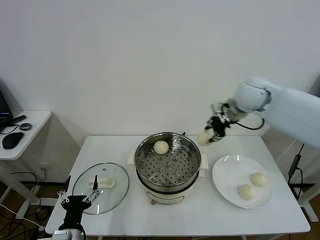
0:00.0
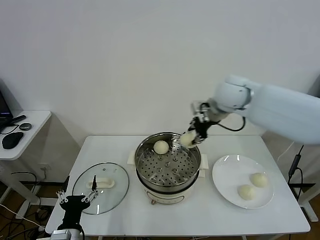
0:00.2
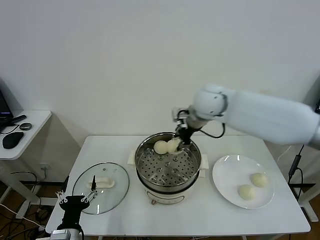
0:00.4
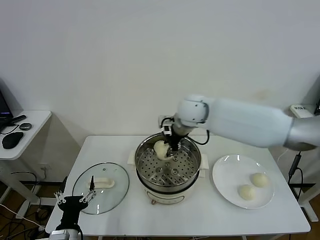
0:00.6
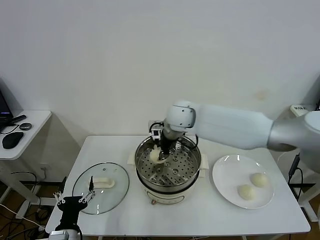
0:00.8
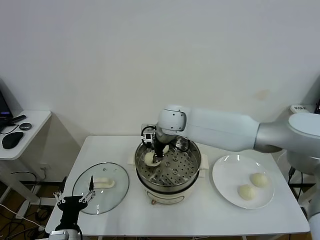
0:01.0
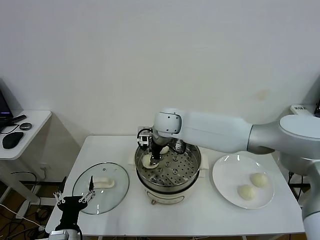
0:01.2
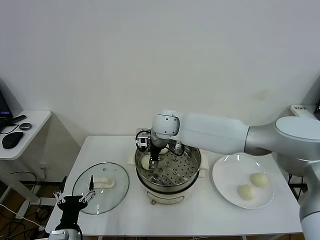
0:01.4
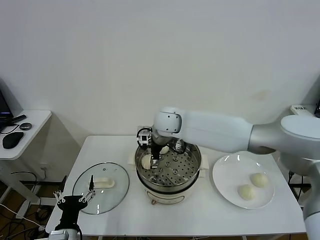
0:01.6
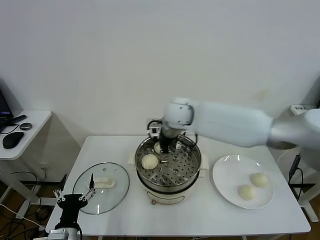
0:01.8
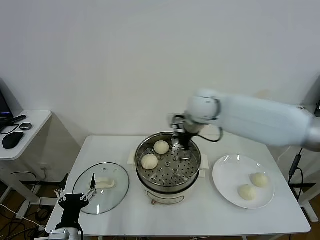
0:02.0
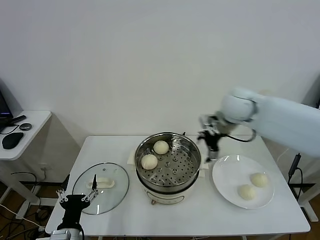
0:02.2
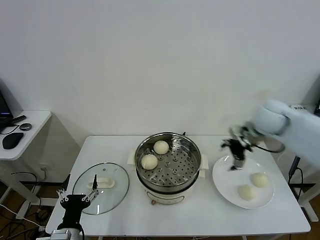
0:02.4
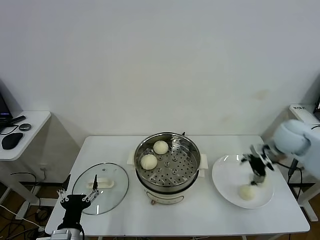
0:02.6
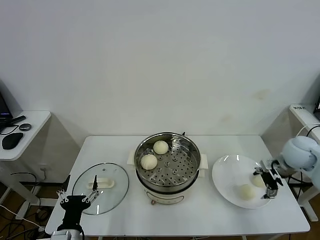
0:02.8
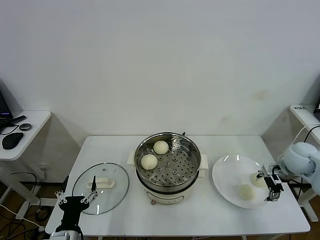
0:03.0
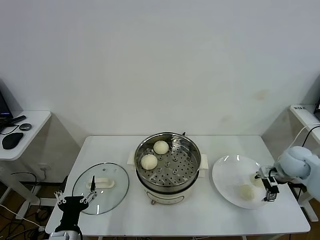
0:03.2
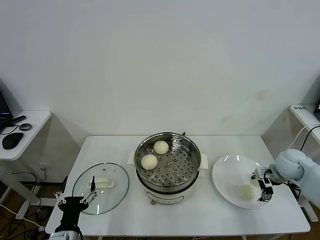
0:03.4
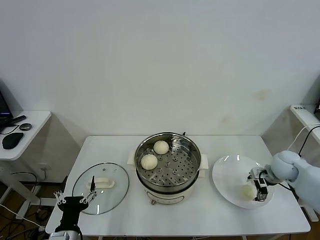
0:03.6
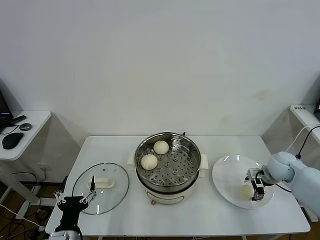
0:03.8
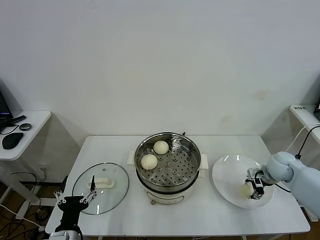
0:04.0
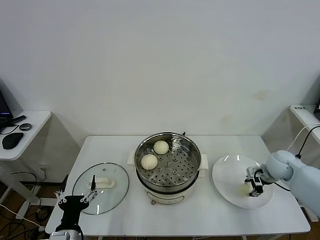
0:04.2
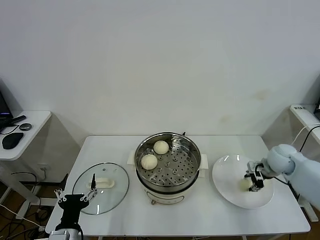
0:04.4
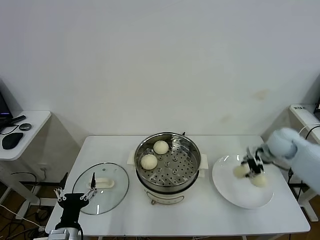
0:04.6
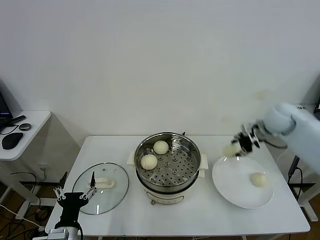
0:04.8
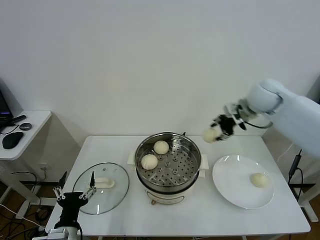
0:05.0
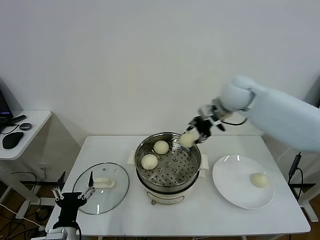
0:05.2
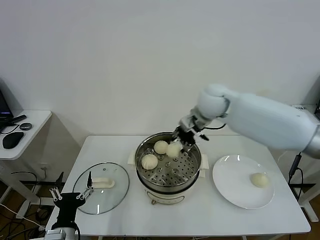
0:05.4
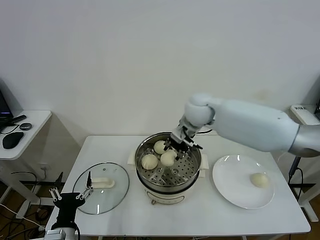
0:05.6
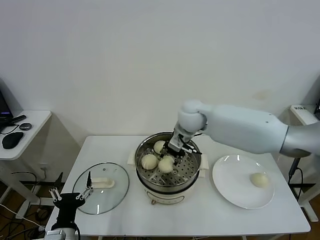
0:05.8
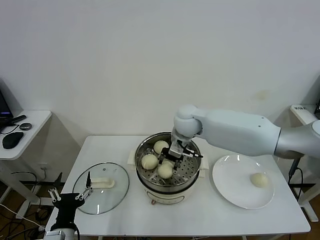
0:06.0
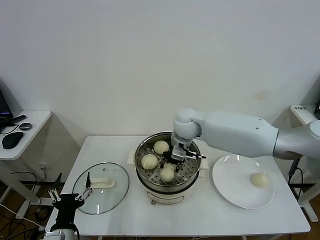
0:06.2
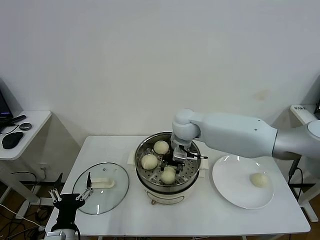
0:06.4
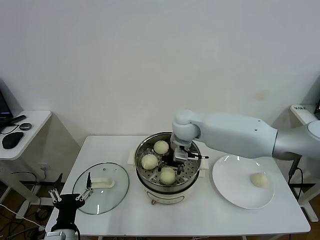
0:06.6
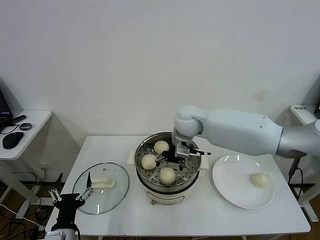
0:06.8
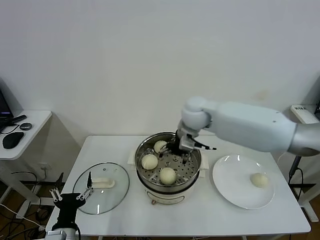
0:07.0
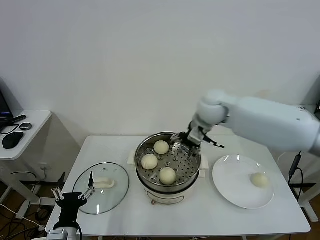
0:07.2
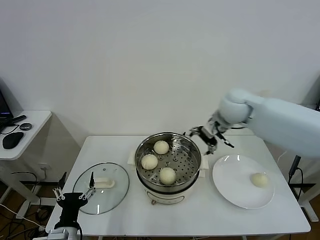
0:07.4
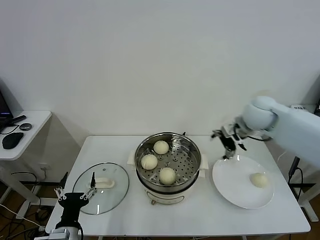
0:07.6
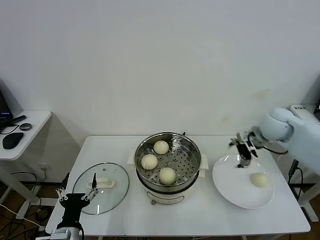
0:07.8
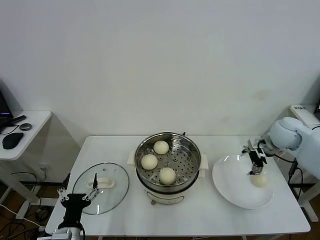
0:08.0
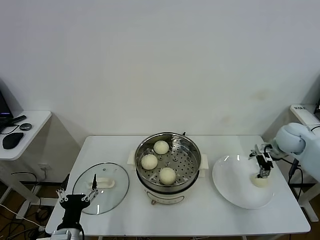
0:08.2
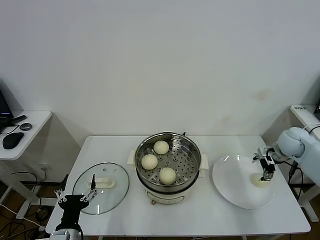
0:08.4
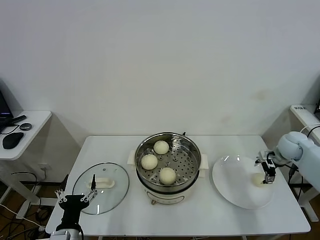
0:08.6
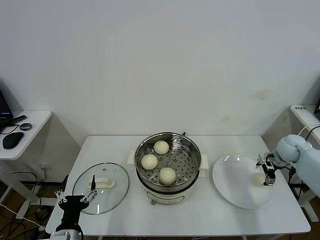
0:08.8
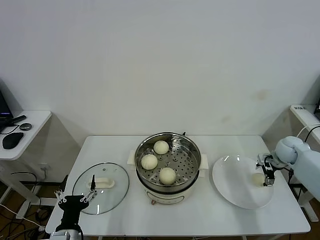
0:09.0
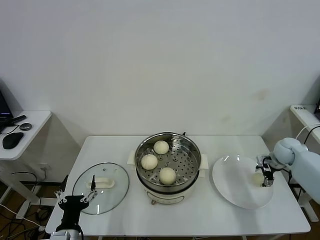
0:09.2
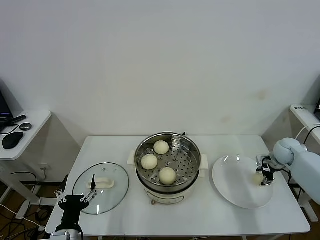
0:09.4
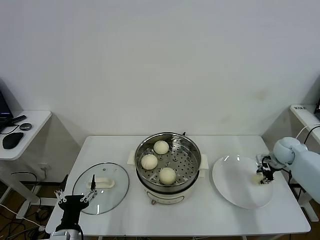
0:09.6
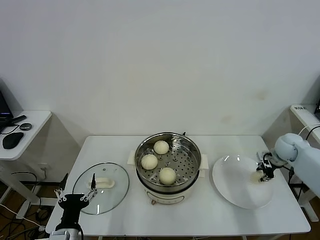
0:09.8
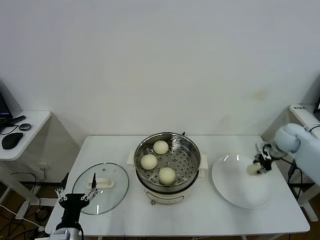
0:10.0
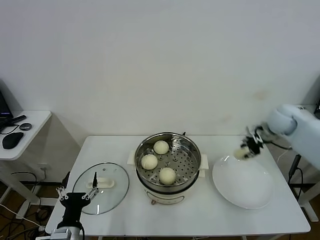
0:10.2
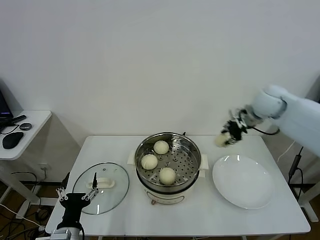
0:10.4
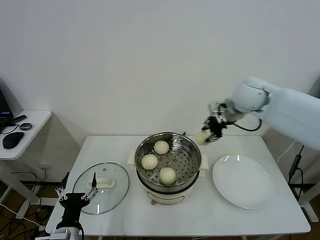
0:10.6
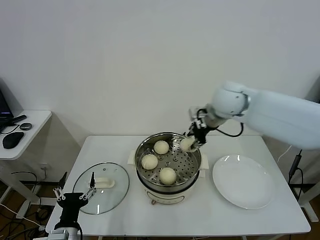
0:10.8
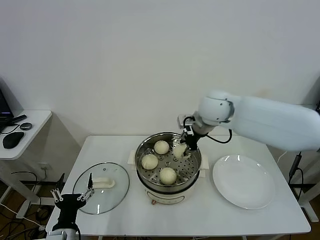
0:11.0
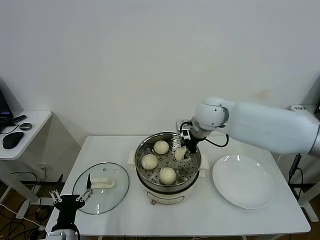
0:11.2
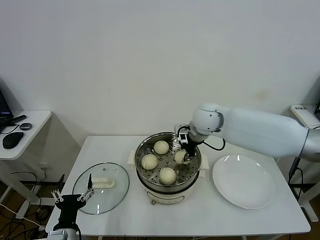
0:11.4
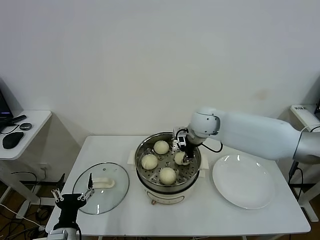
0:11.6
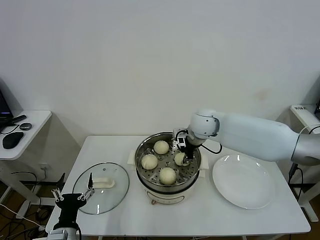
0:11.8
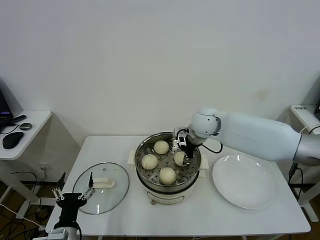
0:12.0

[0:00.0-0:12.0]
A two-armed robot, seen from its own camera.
Task of the whole recording: take steamed baozi put them in steamer.
Step, 0:00.0 to 0:01.6: Place the baozi on the steamer with right gripper.
Step, 0:02.0 to 0:04.4: Grasp the baozi in the plate with right gripper.
Step, 0:04.6 to 0:07.0: Place the baozi on the steamer with right gripper.
Step, 0:07.2 to 0:09.6: Grasp the baozi in the plate with right gripper.
0:00.0 to 0:01.6: The right gripper heads to the left and downward, covering about 25 cm, and opens up.
0:01.6 to 0:03.0: The right gripper moves to the right, some 40 cm.
0:03.0 to 0:04.4: The right gripper moves about 5 cm, and closes up.
0:04.4 to 0:06.0: The right gripper goes roughly 35 cm to the left.
0:06.0 to 0:07.6: The right gripper shifts about 20 cm to the right, and opens up.
0:07.6 to 0:09.0: The right gripper heads to the right and downward, covering about 25 cm.
0:09.0 to 0:10.4: The right gripper travels upward and to the left by some 25 cm, and closes up.
0:10.4 to 0:12.0: The right gripper travels to the left by approximately 20 cm, and opens its fingers.

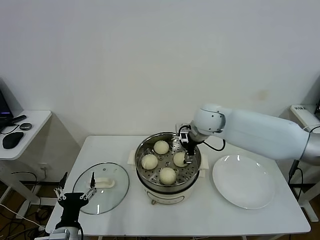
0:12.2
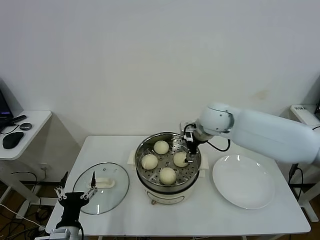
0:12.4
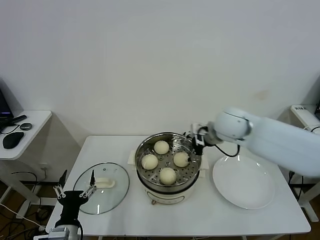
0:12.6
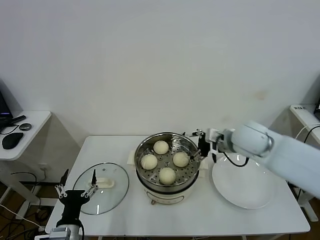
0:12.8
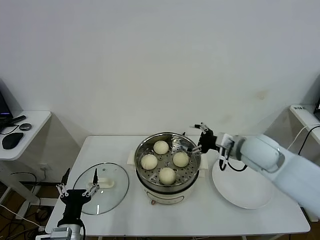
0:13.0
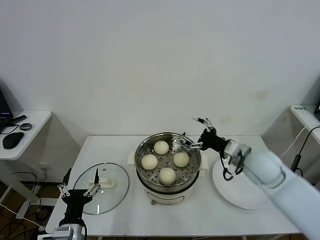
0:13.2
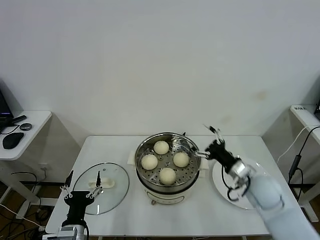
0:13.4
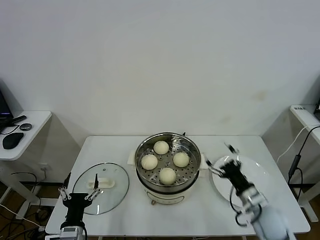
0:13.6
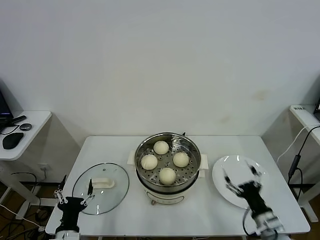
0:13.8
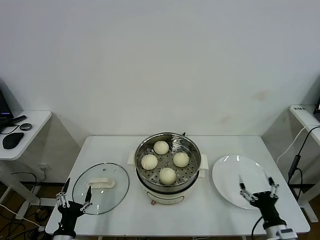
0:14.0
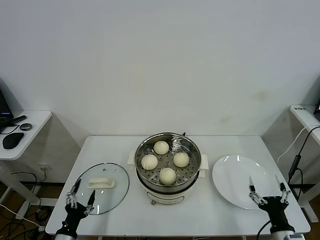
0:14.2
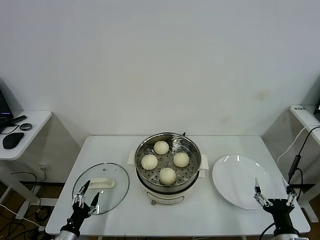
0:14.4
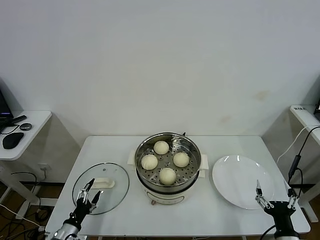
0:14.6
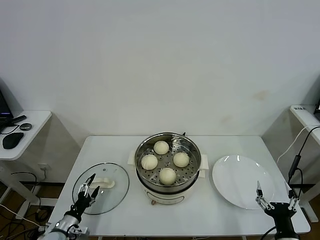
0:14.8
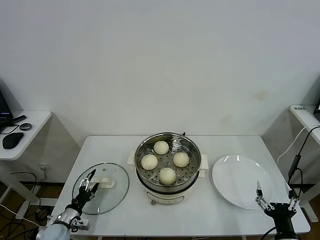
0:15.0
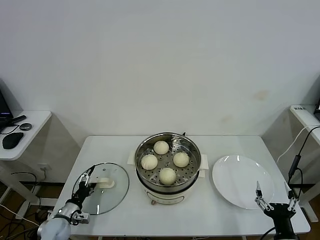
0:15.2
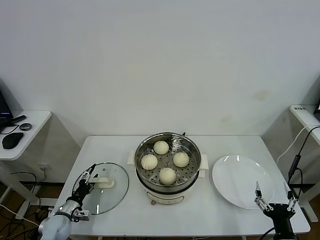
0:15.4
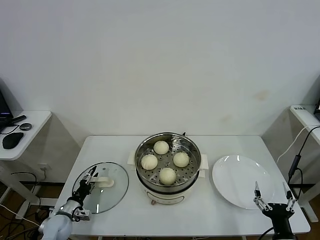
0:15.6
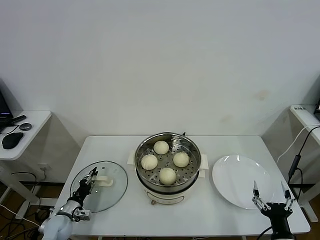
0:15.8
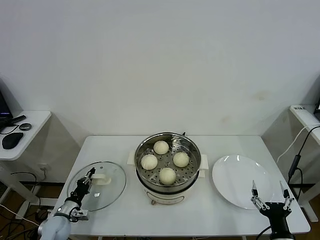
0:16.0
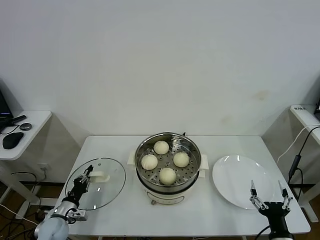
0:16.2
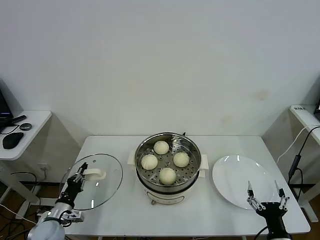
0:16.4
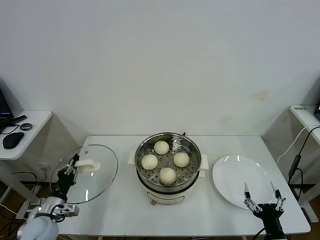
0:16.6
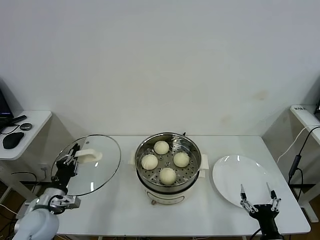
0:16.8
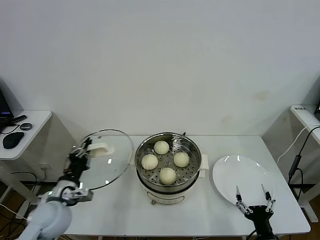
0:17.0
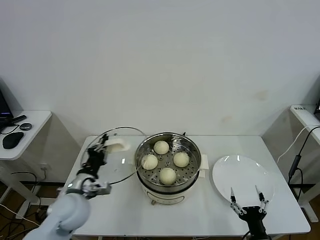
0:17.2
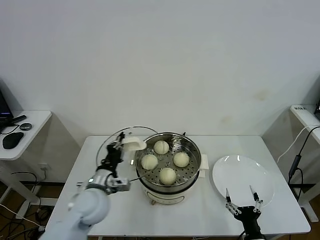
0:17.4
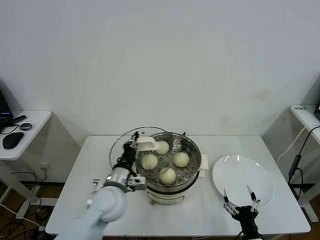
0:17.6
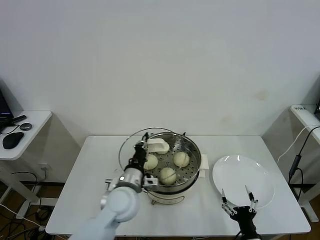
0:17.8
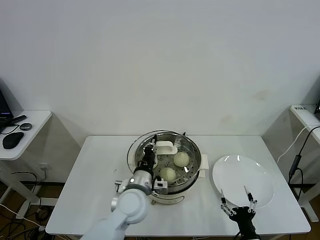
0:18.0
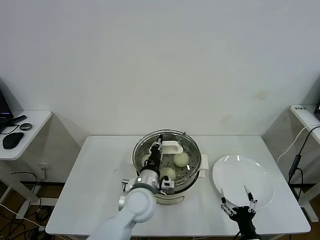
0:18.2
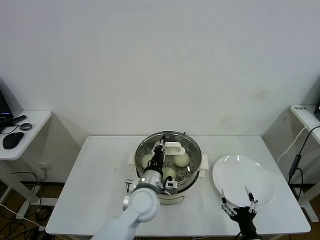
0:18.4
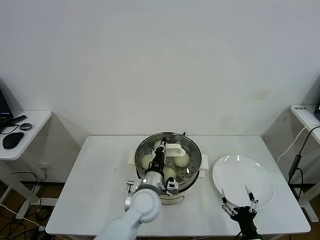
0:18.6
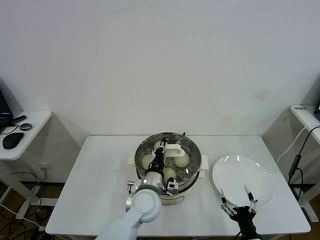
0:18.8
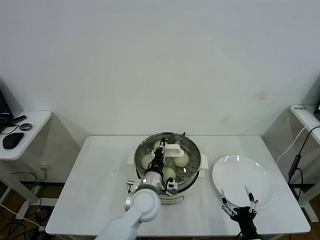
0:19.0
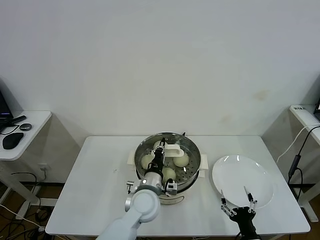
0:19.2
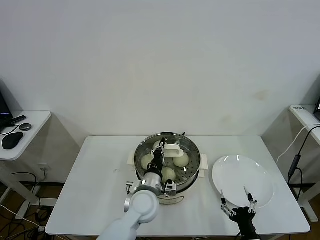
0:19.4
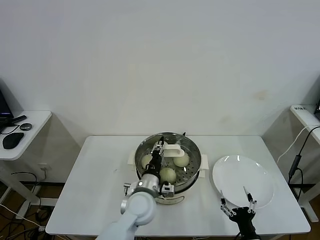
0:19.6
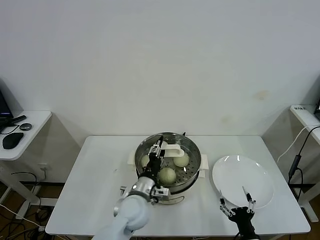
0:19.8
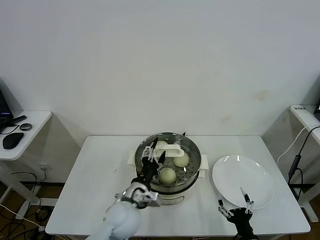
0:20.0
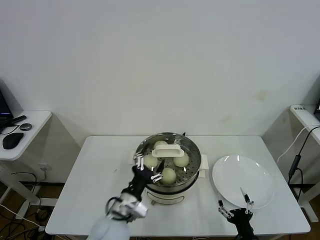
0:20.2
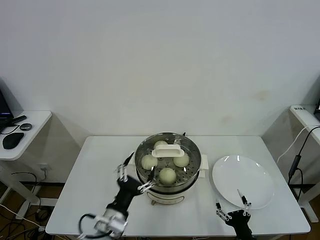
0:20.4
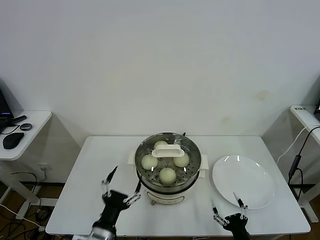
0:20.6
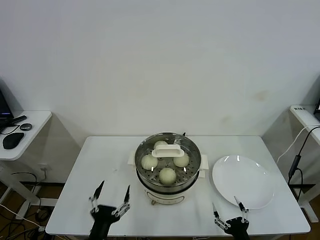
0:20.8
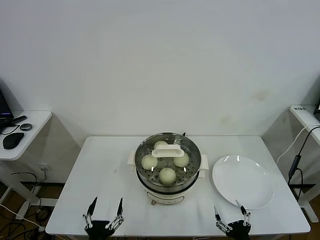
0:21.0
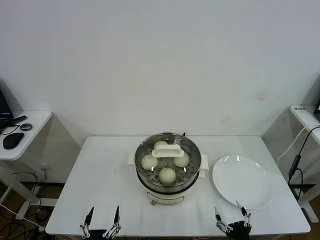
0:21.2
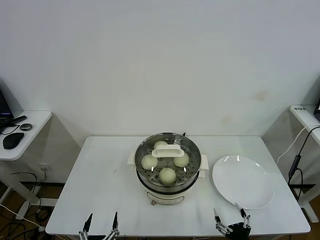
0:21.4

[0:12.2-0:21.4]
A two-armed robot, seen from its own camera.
Task of the whole recording: take steamed baozi put them in steamer.
Step, 0:12.4 to 0:16.0: Grasp the pot lid with left gripper.
Step, 0:16.2 to 0:20.2: Place the pot lid on the steamer with left gripper.
0:12.2 to 0:13.8: The right gripper is displaced backward, downward and to the right by some 40 cm.
0:13.8 to 0:15.2: The left gripper moves forward, to the left and downward, about 20 cm, while the right gripper is displaced backward by some 10 cm.
0:15.2 to 0:16.8: The left gripper goes about 15 cm upward, and closes up.
0:16.8 to 0:18.4: The left gripper moves to the right, some 30 cm; the right gripper shifts by about 5 cm.
0:18.4 to 0:19.8: The left gripper opens.
0:19.8 to 0:21.4: The left gripper travels backward and to the left by roughly 30 cm, and opens its fingers.

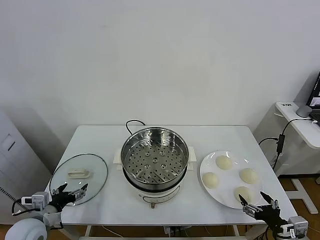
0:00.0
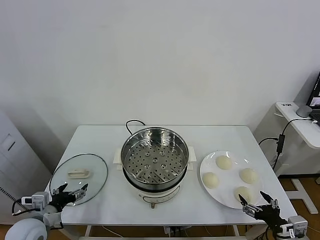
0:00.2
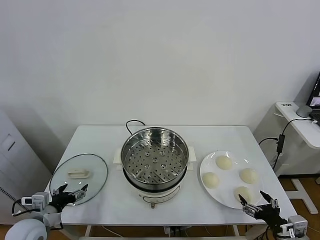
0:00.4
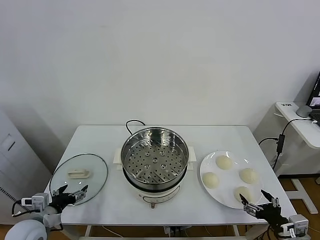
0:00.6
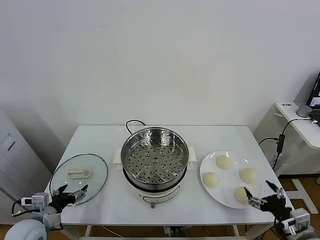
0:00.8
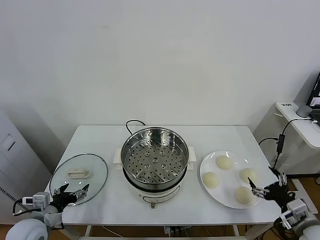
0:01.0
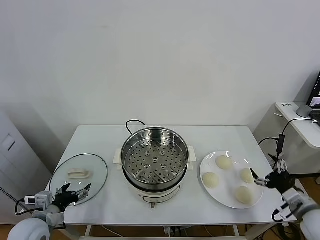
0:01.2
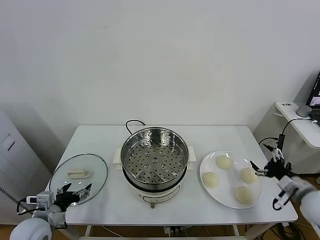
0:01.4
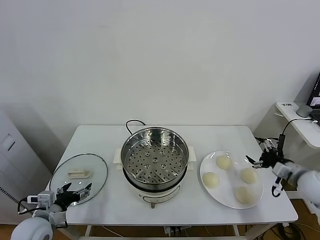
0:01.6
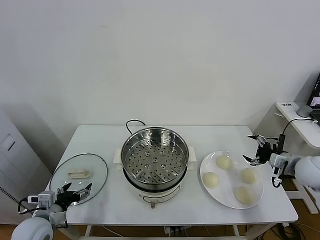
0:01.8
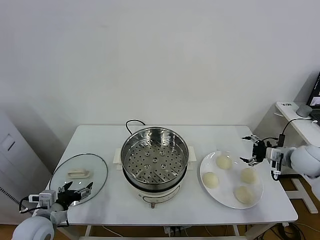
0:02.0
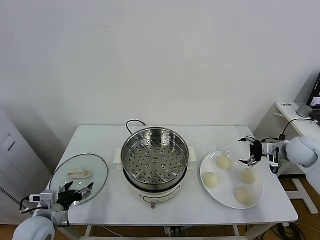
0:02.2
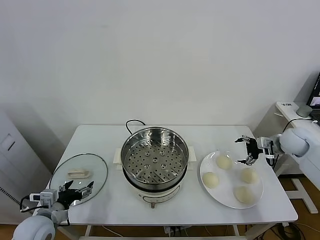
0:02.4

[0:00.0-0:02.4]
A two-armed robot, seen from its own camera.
Task of the whole recording: take steamed baozi put them in steamer.
0:01.2 to 0:02.4: The right gripper is displaced forward by some 25 cm.
